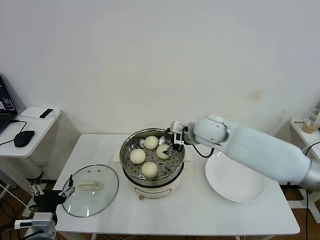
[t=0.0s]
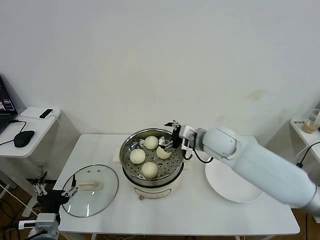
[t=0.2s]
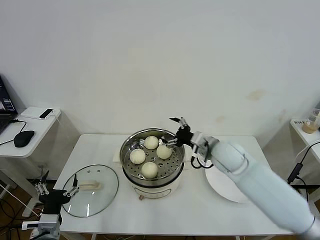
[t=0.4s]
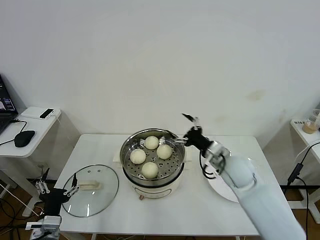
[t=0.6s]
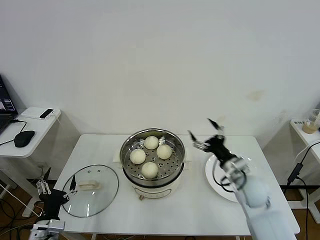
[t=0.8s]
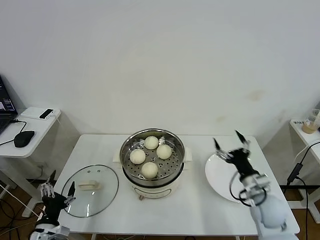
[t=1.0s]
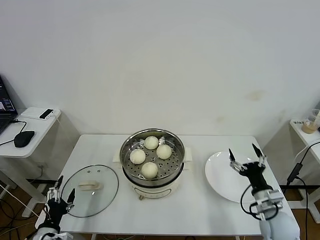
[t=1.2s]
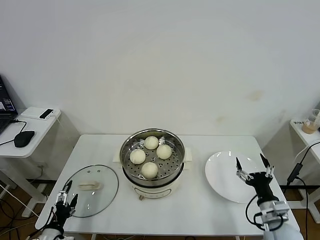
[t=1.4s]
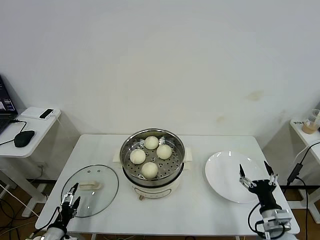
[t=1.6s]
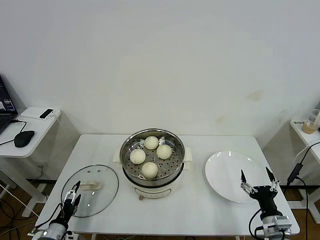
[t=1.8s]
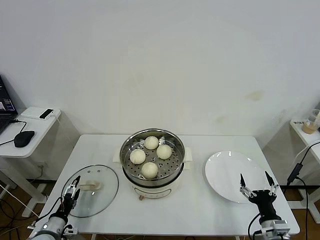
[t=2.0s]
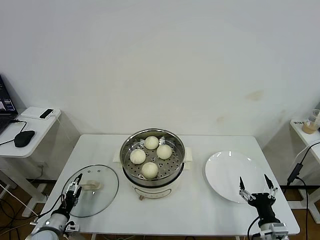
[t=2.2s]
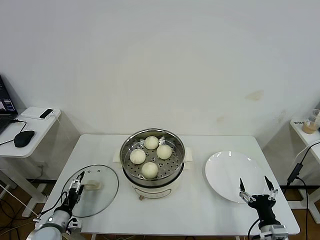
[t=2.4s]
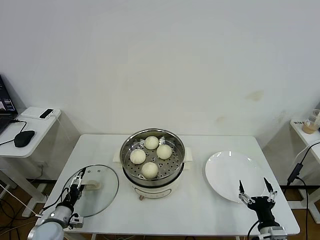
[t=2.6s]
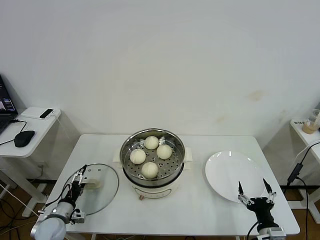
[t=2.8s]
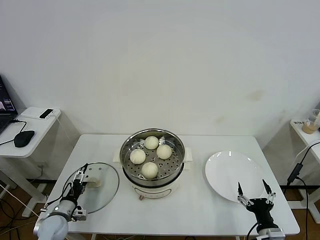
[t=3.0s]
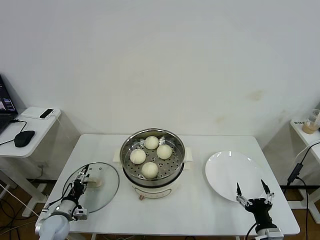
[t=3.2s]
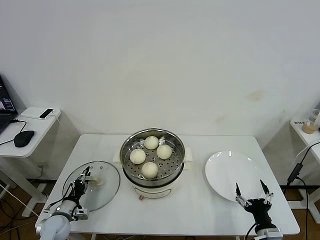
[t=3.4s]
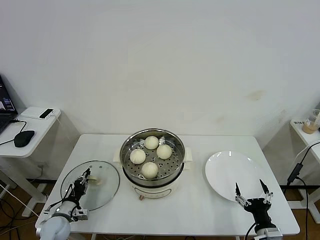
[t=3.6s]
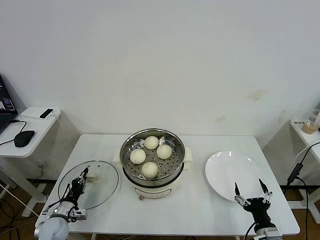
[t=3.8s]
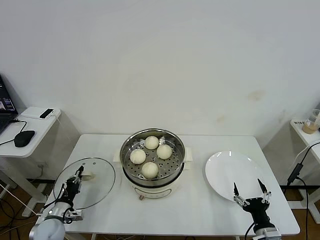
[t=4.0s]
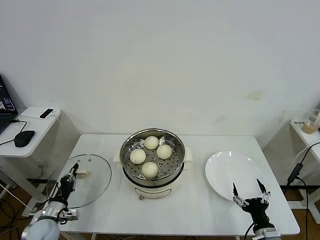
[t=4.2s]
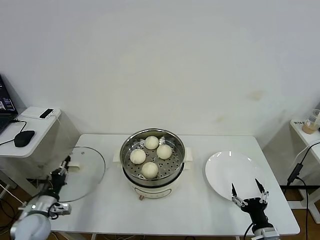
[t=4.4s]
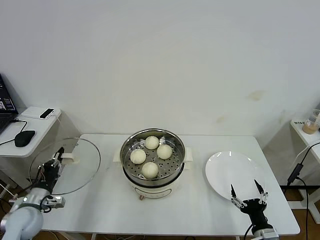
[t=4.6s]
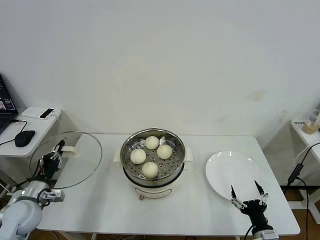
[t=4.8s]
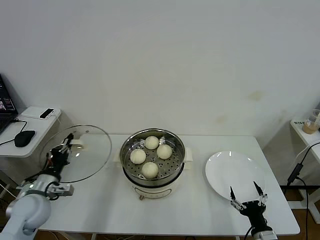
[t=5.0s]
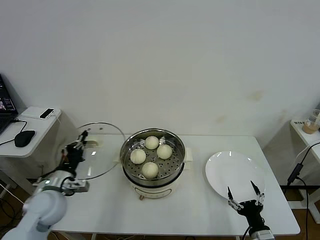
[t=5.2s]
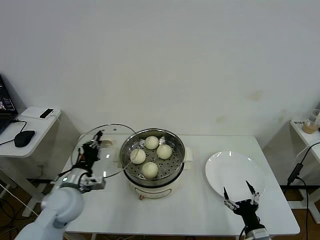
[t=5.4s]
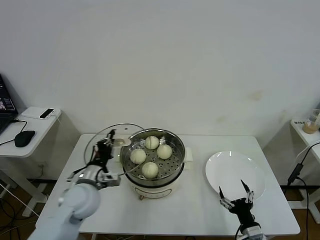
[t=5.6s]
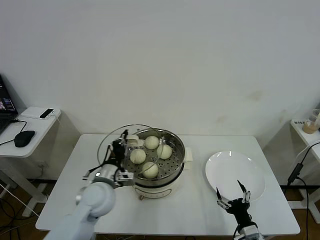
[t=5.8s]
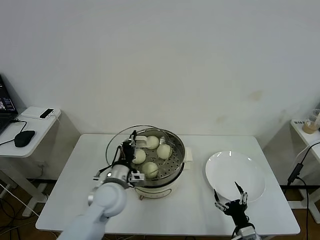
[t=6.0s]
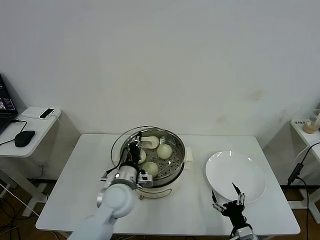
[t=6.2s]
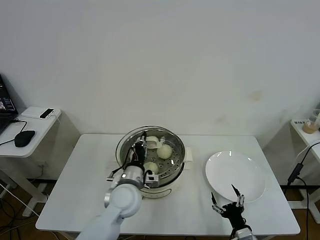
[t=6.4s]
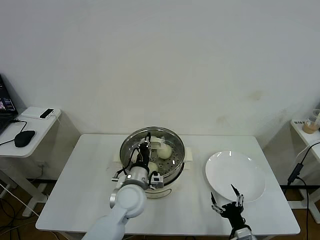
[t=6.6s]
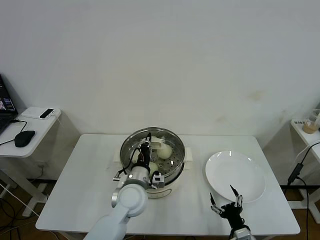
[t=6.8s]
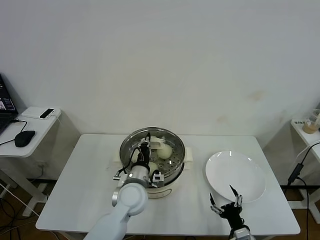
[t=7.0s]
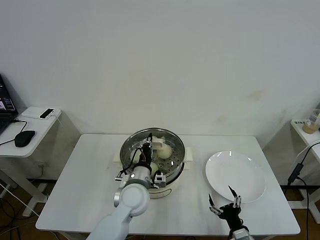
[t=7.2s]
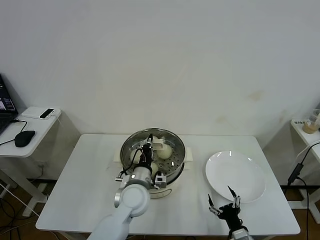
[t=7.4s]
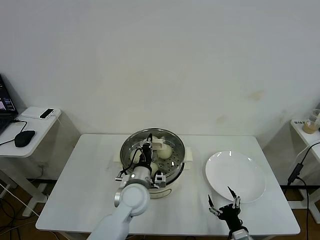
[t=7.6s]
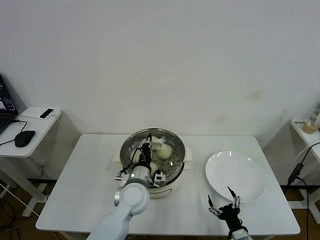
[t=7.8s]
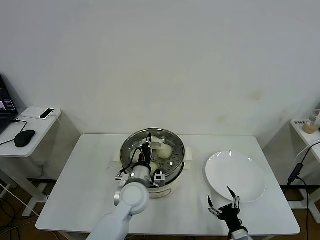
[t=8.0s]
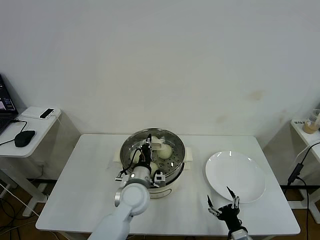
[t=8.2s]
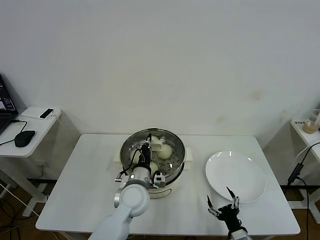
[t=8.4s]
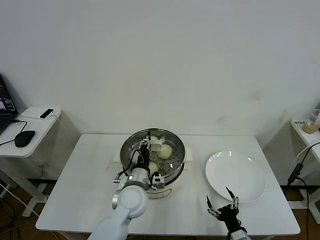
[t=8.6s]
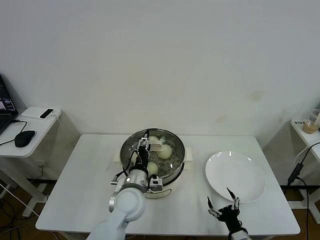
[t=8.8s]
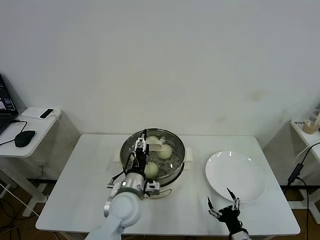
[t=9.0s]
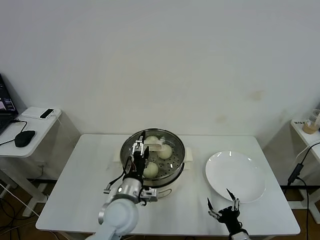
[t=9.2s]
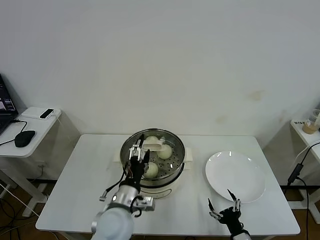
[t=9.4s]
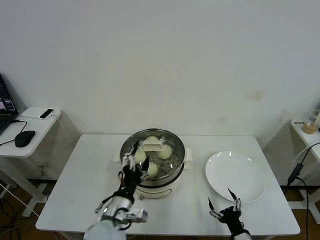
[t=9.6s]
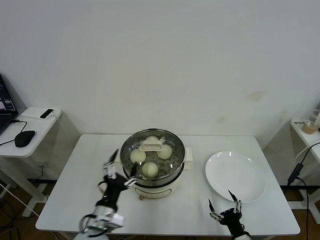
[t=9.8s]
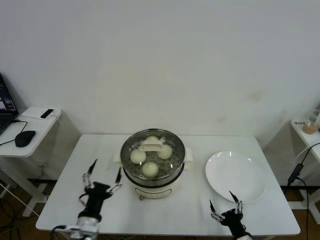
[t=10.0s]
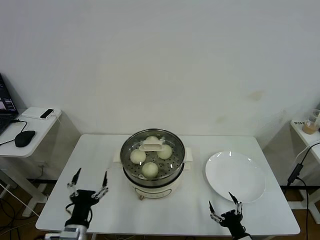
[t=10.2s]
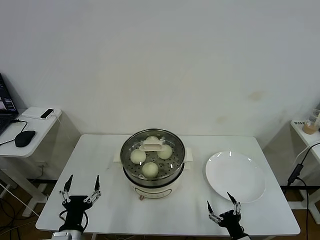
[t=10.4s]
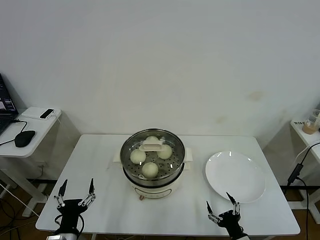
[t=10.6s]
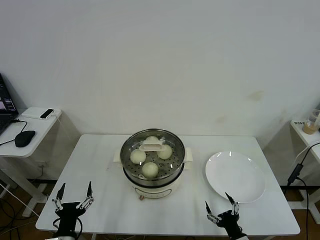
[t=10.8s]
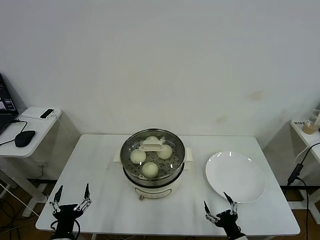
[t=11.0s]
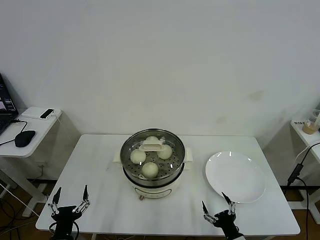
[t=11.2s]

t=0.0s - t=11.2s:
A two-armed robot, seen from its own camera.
Task of the whole recording: take steamed baozi put them in steamer then cover it.
Step, t=0.0s - t=3.6s: Grasp the pot lid with left gripper.
Step, t=4.0s - t=8.8s: Place the pot lid on the steamer with left gripper.
t=0.0s - t=1.6s: The left gripper heads downward and to the left, covering some 15 cm. The right gripper heads backward, to the right and downward, covering approximately 40 cm.
t=1.6s - t=3.2s: The left gripper is displaced forward by approximately 10 cm. The right gripper moves backward, about 5 cm.
t=3.2s - t=4.8s: The left gripper goes some 15 cm upward, and closes.
t=4.8s - t=6.4s: The left gripper is displaced to the right by approximately 30 cm, while the right gripper changes place by approximately 5 cm.
t=6.4s - t=8.0s: The grippers move only a little.
t=8.0s - t=9.6s: The left gripper heads backward, covering roughly 10 cm, and opens up.
t=9.6s - t=11.2s: The left gripper is displaced to the left, backward and downward by roughly 20 cm.

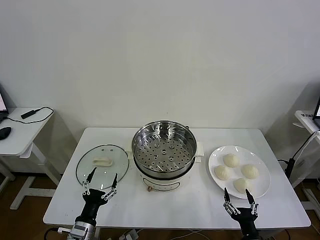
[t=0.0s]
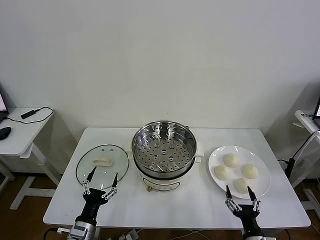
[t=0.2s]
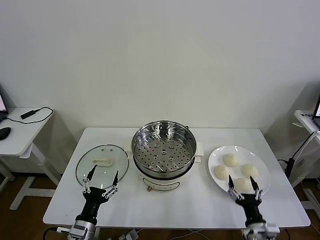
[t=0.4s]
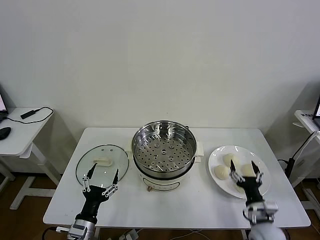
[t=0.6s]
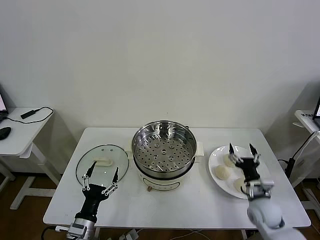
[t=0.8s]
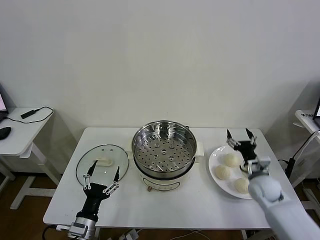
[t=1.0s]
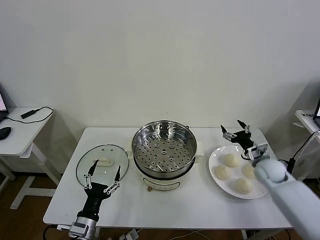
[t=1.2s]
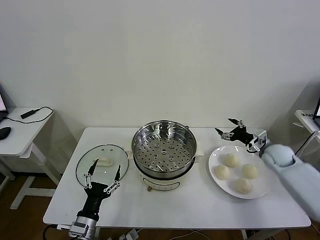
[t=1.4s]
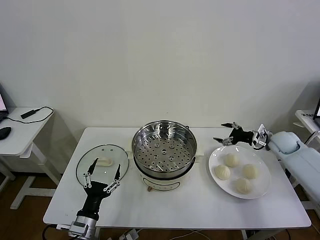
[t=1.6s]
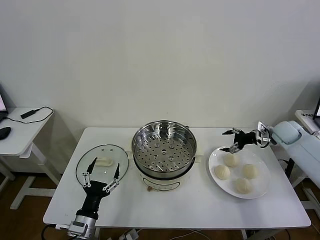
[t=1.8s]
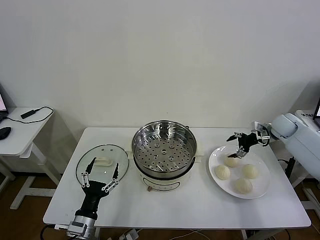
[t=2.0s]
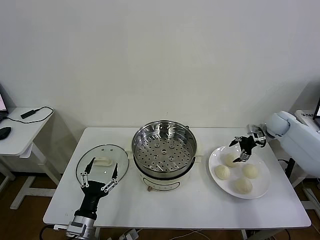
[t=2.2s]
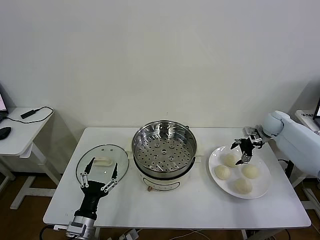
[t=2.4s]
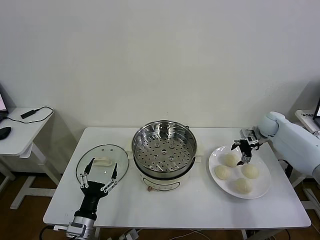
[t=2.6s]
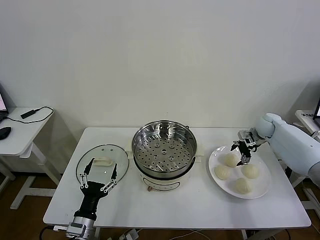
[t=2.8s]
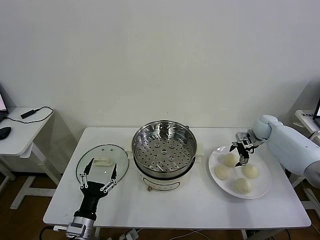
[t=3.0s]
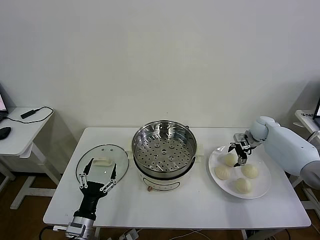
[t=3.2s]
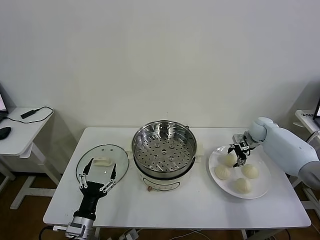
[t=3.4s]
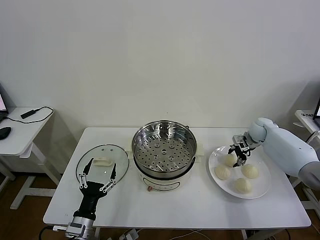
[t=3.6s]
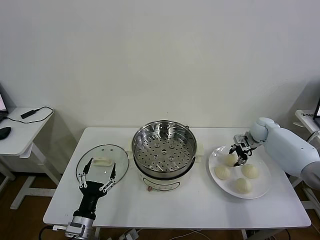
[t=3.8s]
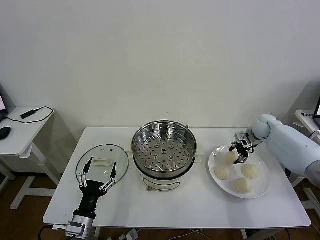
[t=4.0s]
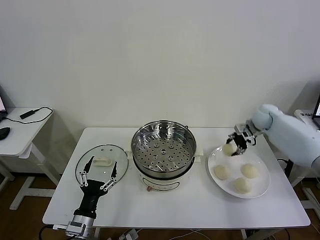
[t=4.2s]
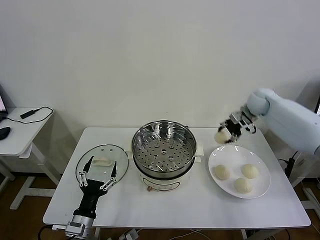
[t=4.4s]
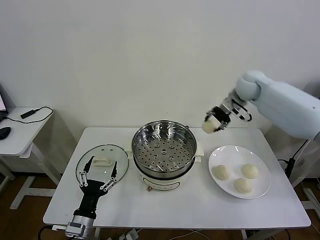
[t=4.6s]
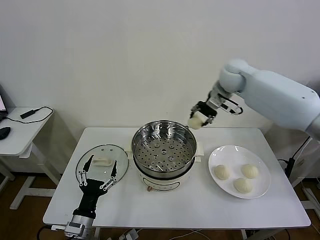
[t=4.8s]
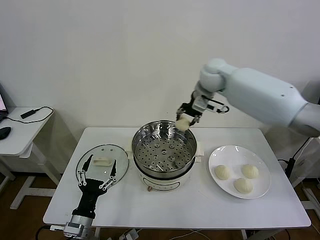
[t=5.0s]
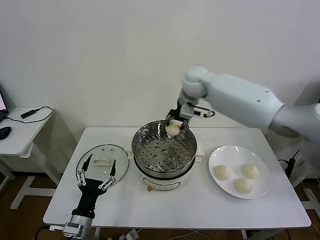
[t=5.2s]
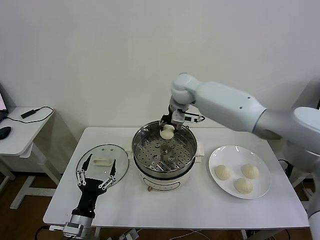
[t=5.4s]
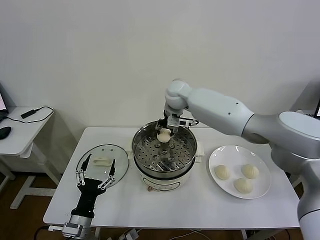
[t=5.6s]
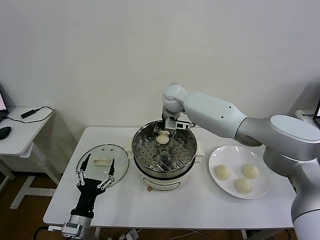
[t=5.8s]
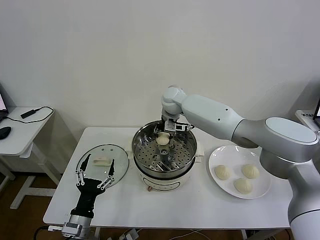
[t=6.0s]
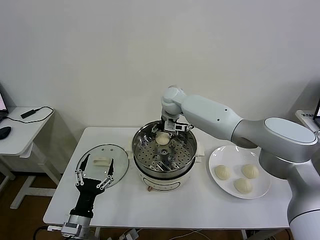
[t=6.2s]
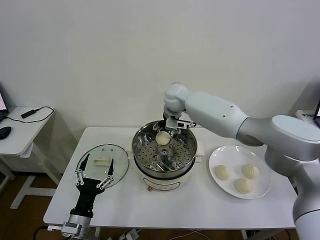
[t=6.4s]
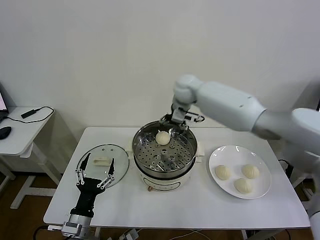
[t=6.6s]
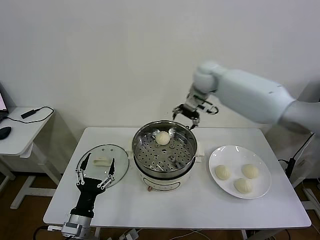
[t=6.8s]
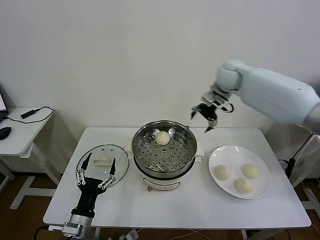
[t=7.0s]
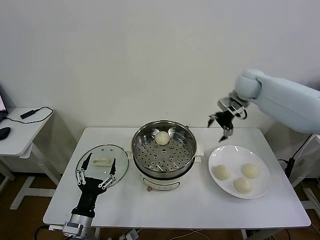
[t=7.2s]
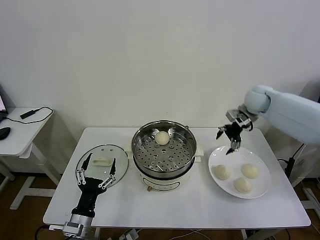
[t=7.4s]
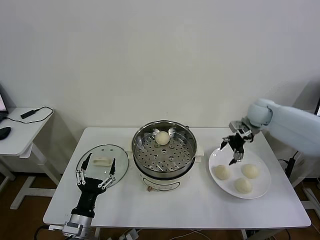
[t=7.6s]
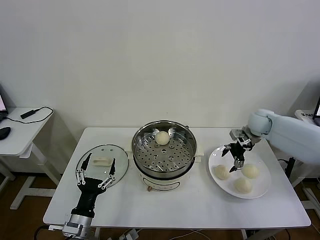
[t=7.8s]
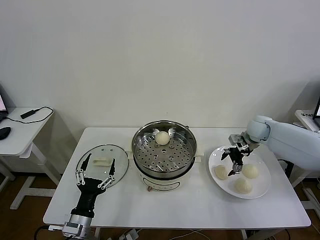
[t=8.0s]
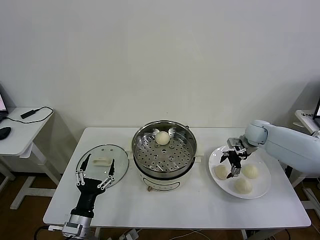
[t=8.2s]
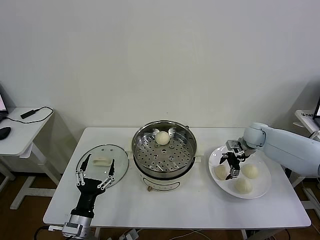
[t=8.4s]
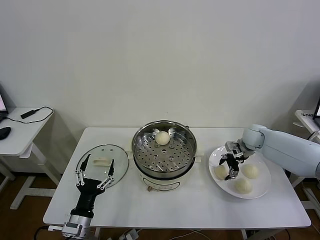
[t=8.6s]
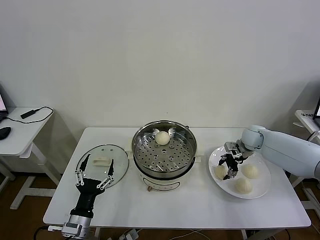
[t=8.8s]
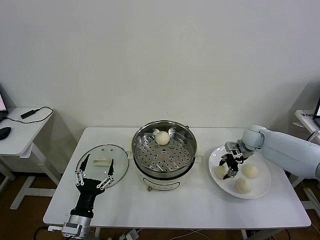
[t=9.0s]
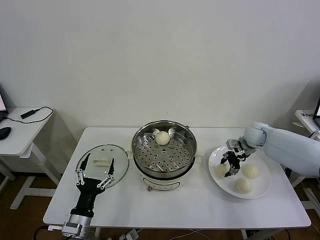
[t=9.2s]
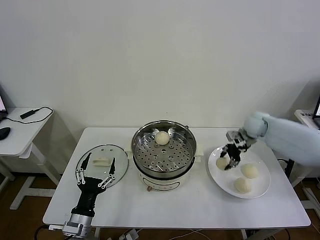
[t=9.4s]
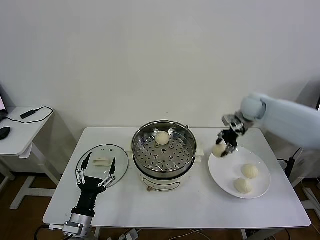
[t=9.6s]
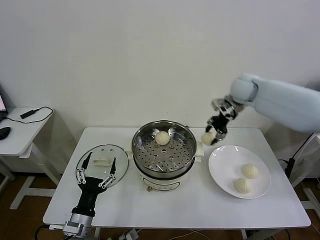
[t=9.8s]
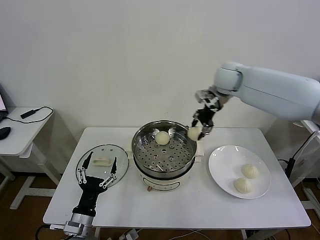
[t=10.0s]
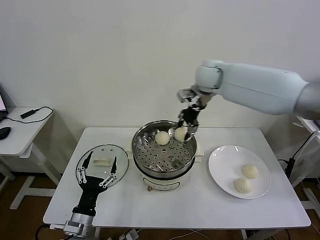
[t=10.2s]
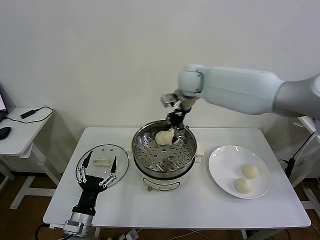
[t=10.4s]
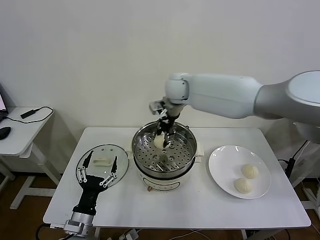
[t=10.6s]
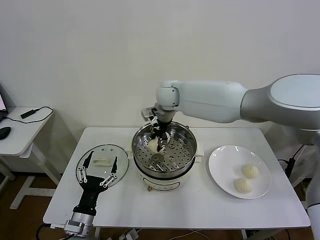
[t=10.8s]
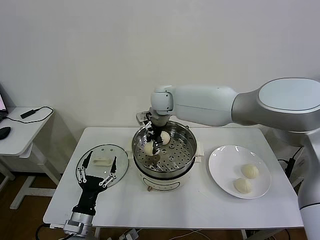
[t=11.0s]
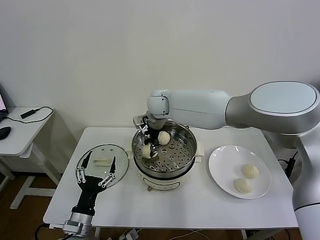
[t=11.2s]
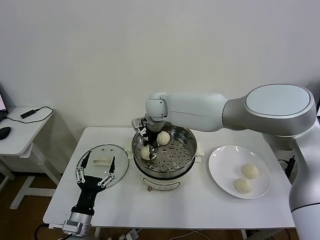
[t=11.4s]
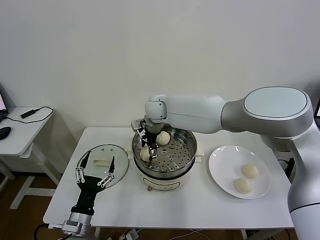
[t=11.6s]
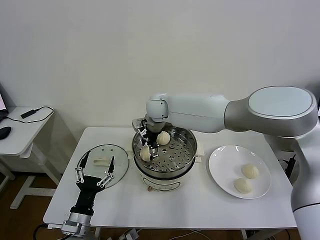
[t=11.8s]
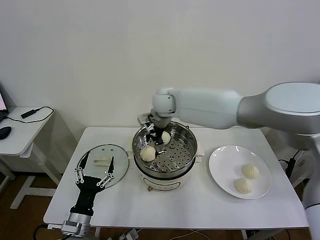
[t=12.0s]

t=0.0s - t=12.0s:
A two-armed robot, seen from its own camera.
Task of the whole recording: take steamed baozi put them in steamer then cover it.
Step, t=0.0s - t=3.6s: Grasp the baozi in the plate with right gripper.
Step, t=3.8s - t=6.0s: Place the baozi on the steamer with right gripper.
Step, t=6.4s - t=9.0s: Grasp the baozi in the plate with right gripper.
Step, t=9.2s - t=11.6s: Place the baozi on the steamer with right gripper.
t=1.6s - t=3.0s: The right gripper is displaced forward by about 5 cm.
t=3.0s - t=4.4s: The right gripper goes approximately 20 cm upward and to the left, and closes.
t=4.4s - t=6.0s: The right gripper is displaced to the left by approximately 30 cm.
t=6.0s - t=7.6s: The right gripper shifts roughly 30 cm to the right, and opens.
t=7.6s - t=9.0s: The right gripper goes approximately 10 cm downward, and closes up.
t=9.0s - t=10.4s: The right gripper goes roughly 35 cm to the left and upward.
t=10.4s - t=12.0s: The right gripper goes some 5 cm to the left, and opens up.
